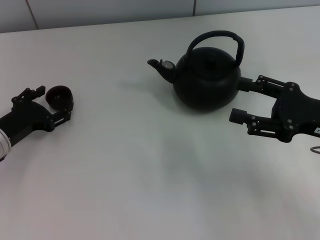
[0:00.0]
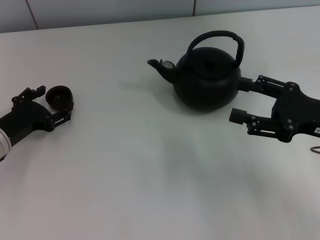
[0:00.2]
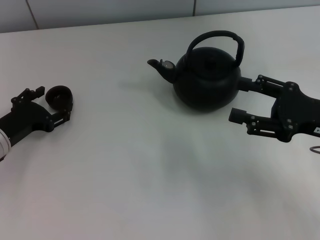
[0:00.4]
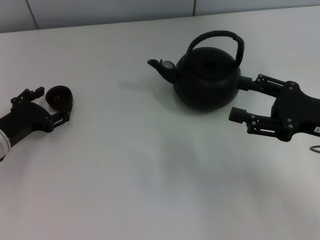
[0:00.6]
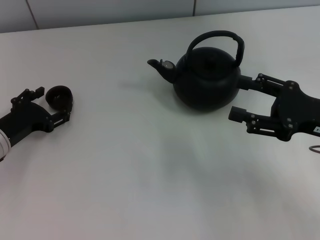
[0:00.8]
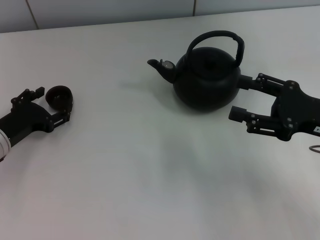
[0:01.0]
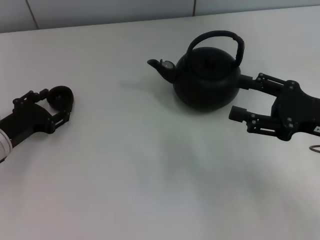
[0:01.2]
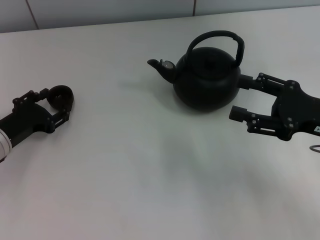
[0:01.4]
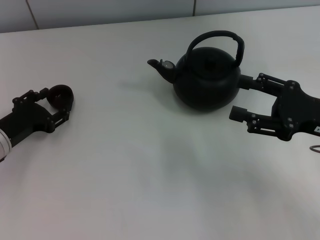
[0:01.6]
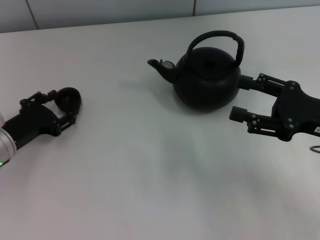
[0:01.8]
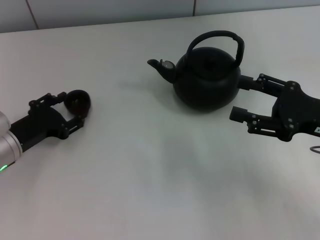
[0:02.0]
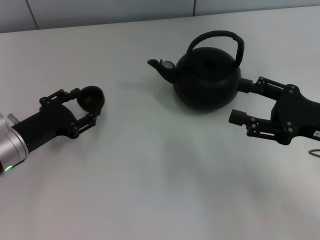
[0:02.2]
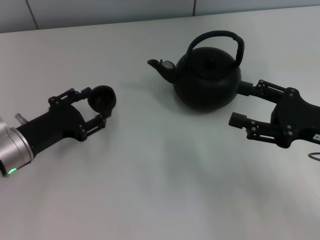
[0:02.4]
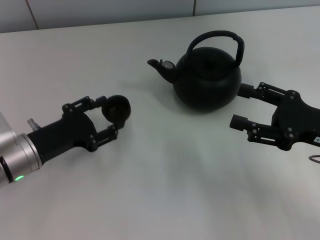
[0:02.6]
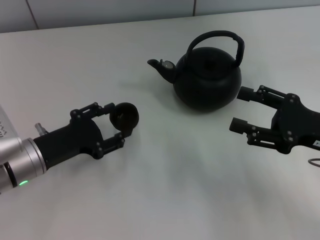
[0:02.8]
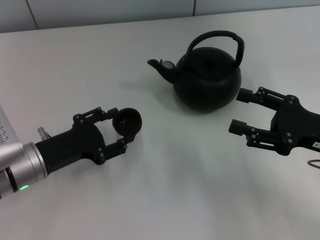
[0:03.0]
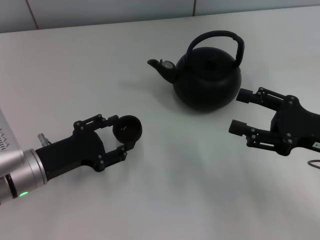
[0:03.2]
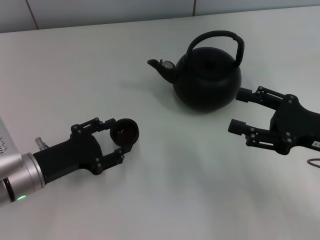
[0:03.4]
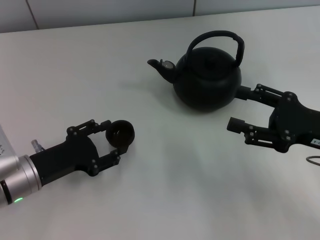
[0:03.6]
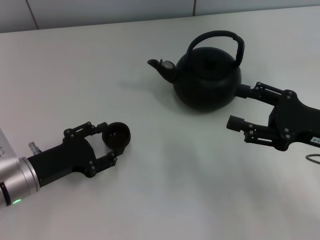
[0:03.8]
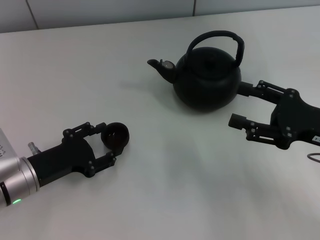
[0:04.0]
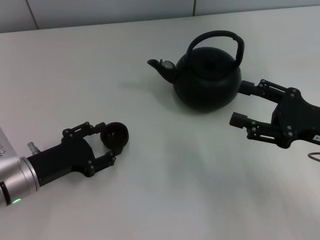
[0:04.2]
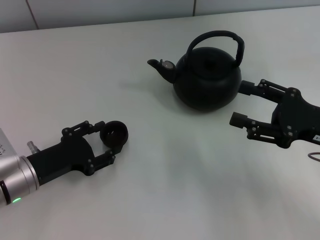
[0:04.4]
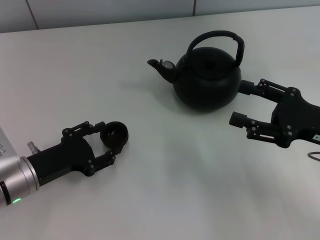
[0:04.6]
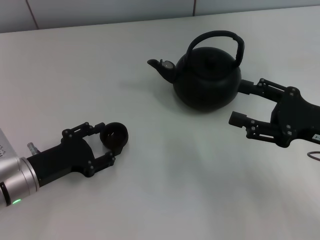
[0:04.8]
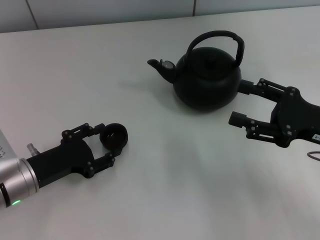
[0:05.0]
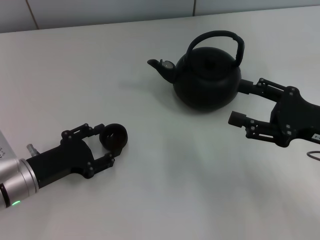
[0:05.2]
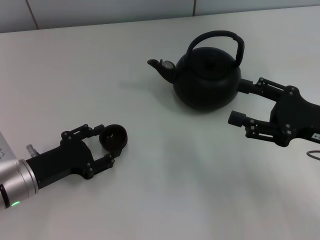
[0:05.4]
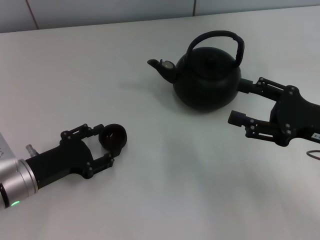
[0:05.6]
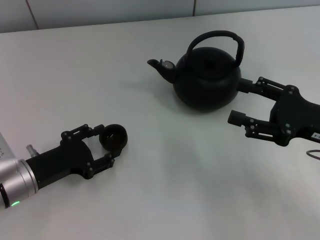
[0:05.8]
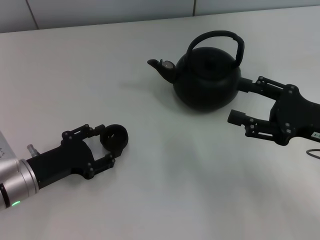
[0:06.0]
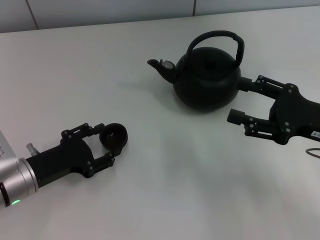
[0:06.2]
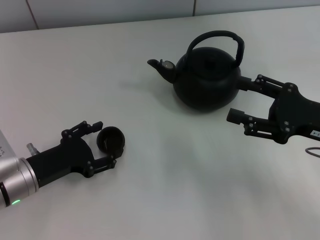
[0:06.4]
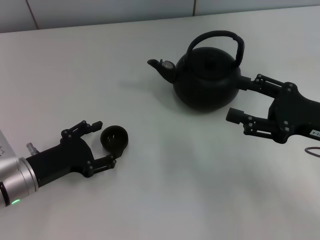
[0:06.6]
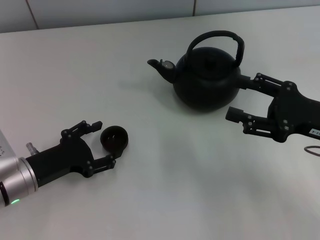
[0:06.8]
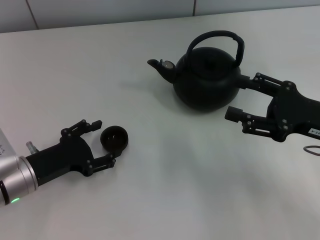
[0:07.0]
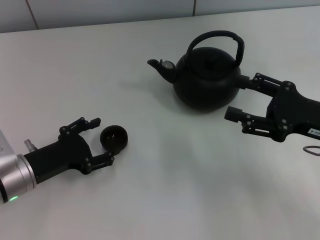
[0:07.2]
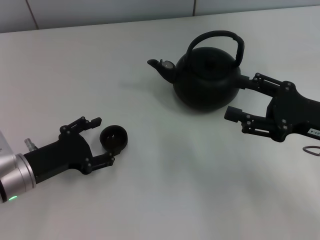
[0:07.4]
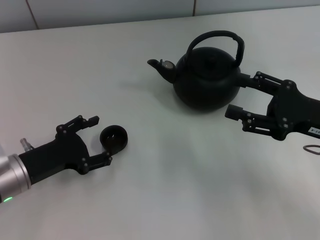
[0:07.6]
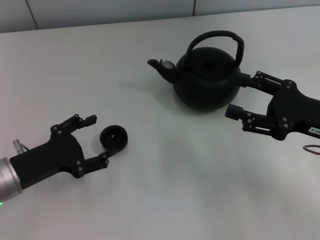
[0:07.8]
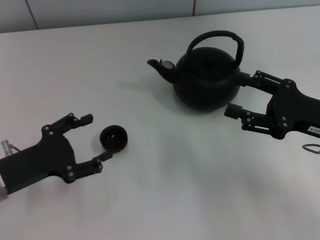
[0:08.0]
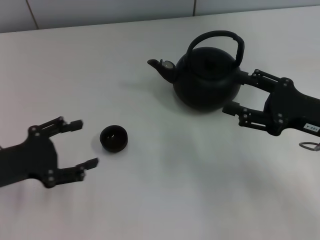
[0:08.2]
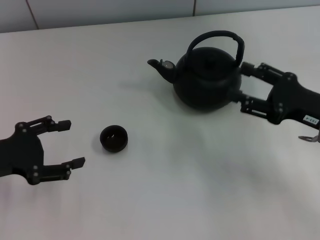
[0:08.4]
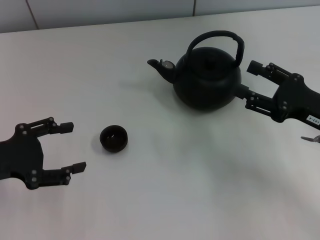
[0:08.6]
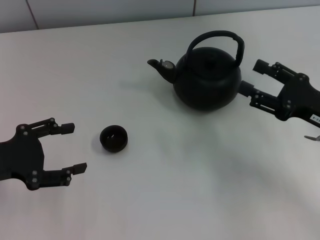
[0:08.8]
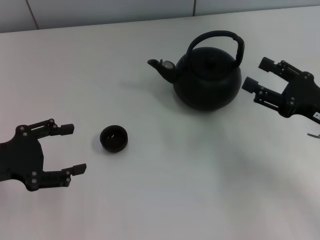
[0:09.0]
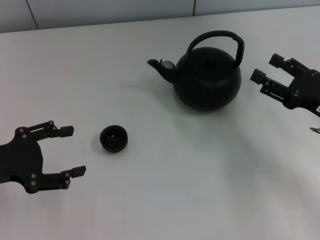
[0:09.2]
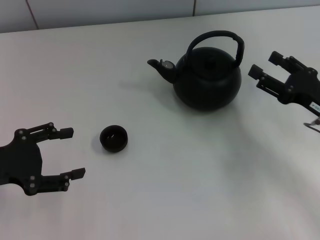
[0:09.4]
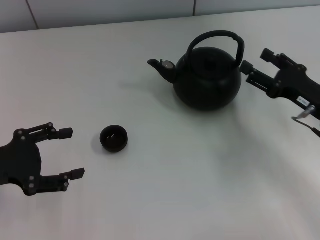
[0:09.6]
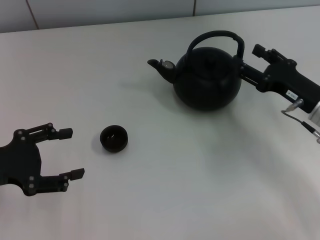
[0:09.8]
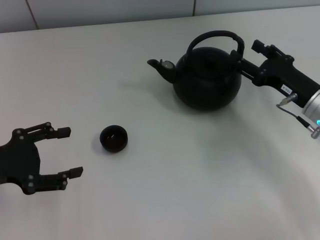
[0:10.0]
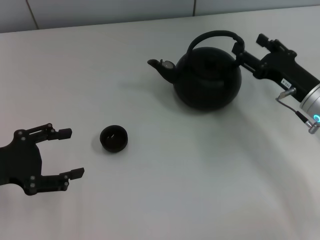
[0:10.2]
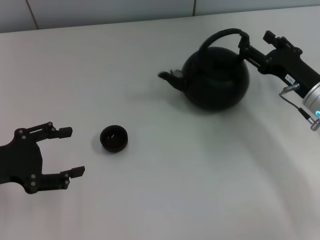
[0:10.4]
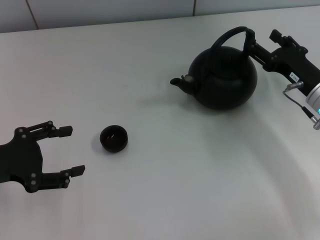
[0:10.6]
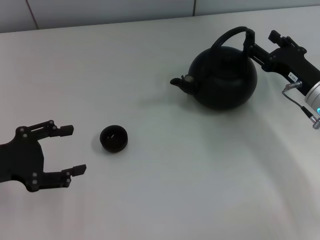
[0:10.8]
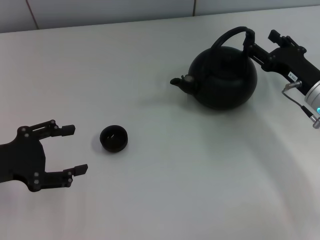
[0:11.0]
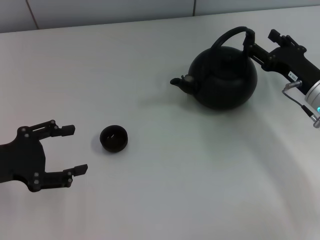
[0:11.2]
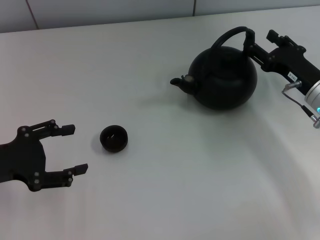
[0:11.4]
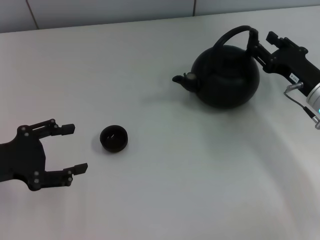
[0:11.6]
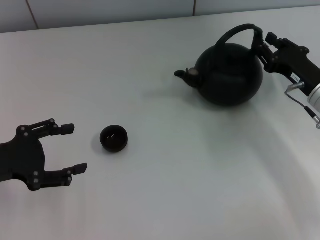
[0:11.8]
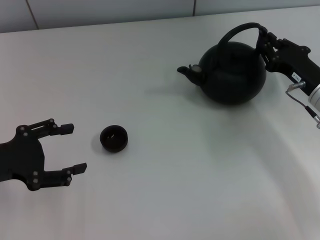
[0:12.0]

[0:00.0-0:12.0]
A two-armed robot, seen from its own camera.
Task of the whole recording: Grasp the handle of the teapot with one hand and pour tea into the teacup.
Step, 0:00.0 to 0:02.0: Pick up the teacup with the left gripper.
Step, 0:02.2 to 0:07.2: Place the teacup in the center of view with the left gripper.
0:00.0 to 0:01.6: The left gripper closes its fingers.
0:01.6 to 0:03.0: The left gripper heads to the right, covering about 5 cm.
0:03.0 to 0:04.4: The grippers stay close to where they were, moving slightly.
0:04.4 to 0:06.0: Both grippers stay put.
0:06.0 to 0:07.6: The left gripper opens.
0:07.6 to 0:09.0: The left gripper goes about 10 cm upward and to the left.
0:09.0 to 0:10.4: The right gripper moves forward, roughly 5 cm.
0:10.4 to 0:12.0: The right gripper closes up.

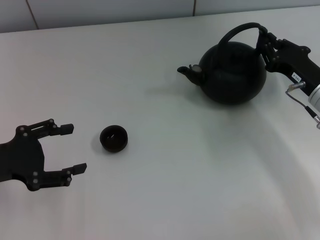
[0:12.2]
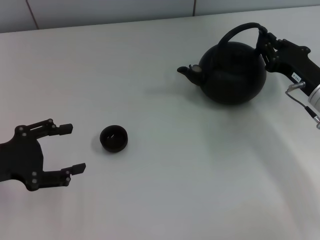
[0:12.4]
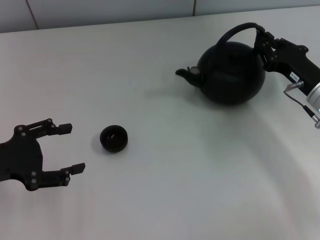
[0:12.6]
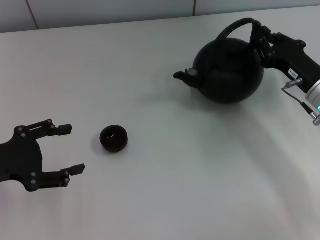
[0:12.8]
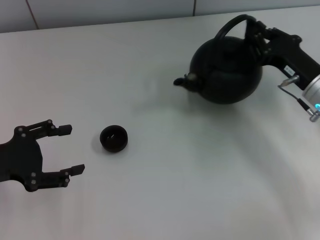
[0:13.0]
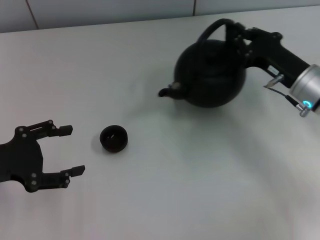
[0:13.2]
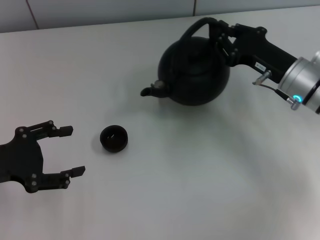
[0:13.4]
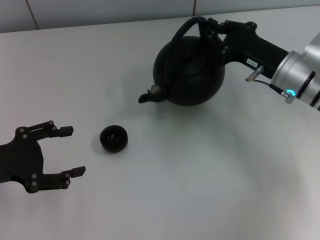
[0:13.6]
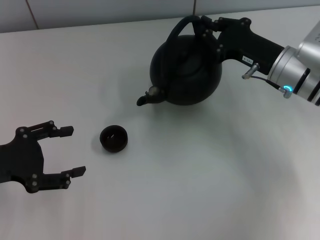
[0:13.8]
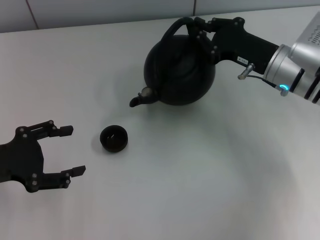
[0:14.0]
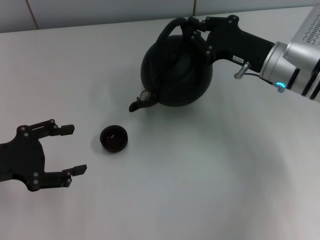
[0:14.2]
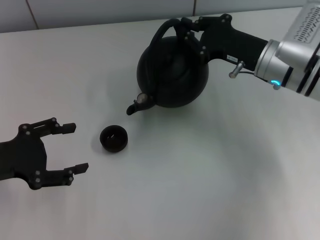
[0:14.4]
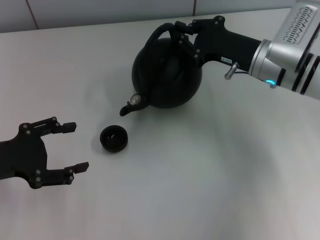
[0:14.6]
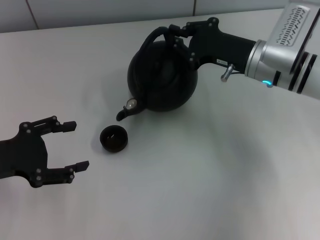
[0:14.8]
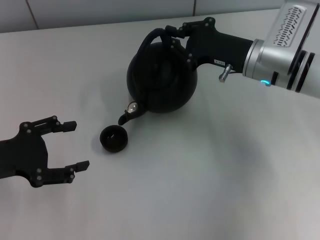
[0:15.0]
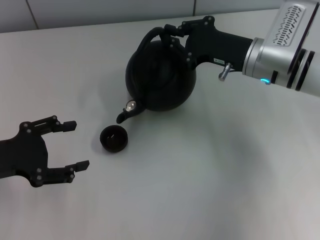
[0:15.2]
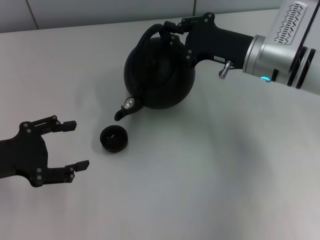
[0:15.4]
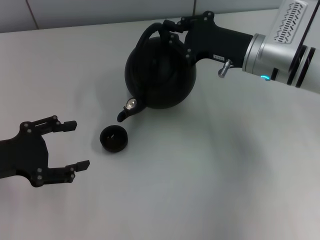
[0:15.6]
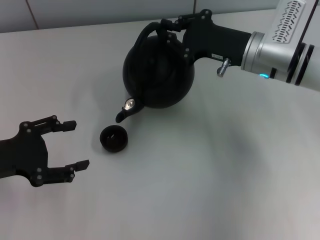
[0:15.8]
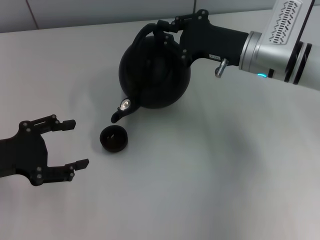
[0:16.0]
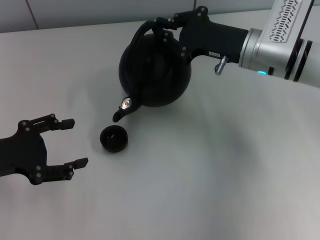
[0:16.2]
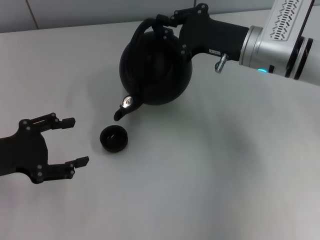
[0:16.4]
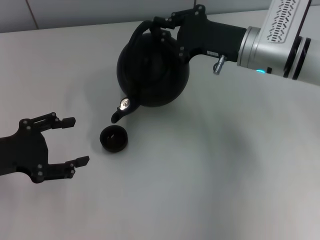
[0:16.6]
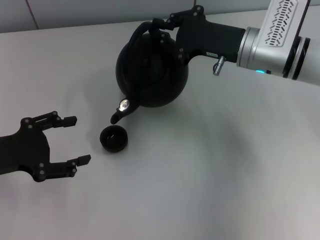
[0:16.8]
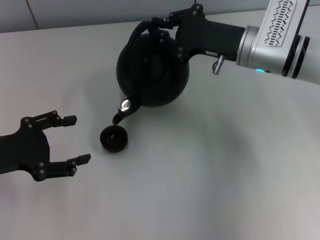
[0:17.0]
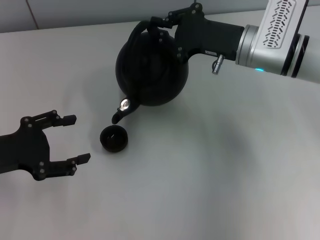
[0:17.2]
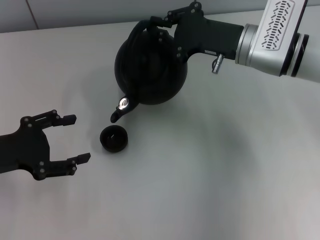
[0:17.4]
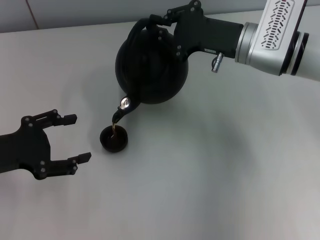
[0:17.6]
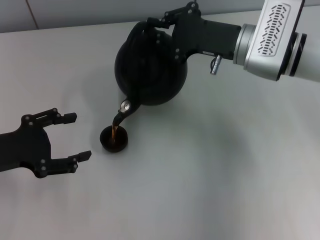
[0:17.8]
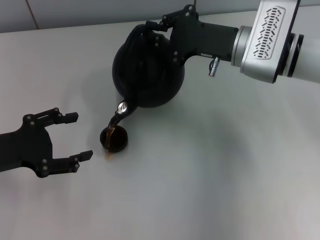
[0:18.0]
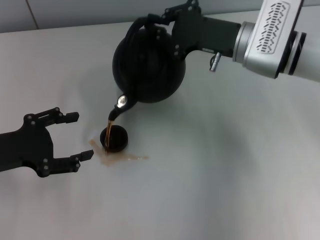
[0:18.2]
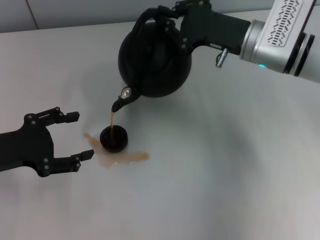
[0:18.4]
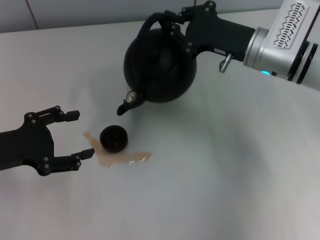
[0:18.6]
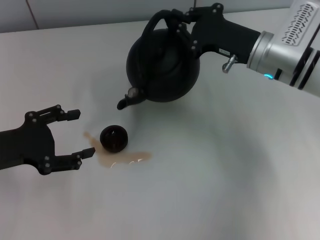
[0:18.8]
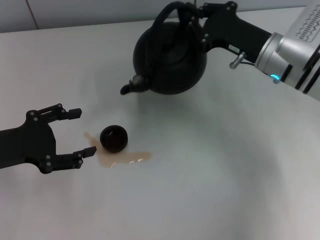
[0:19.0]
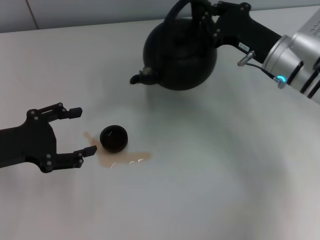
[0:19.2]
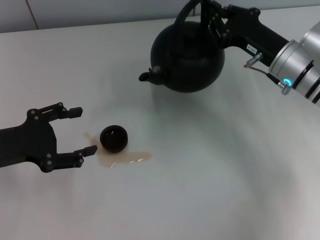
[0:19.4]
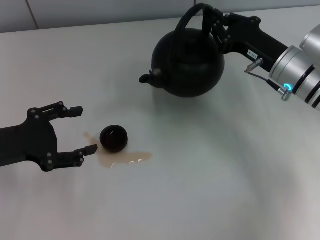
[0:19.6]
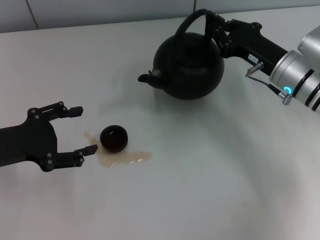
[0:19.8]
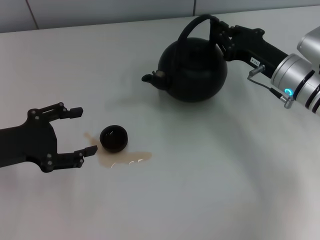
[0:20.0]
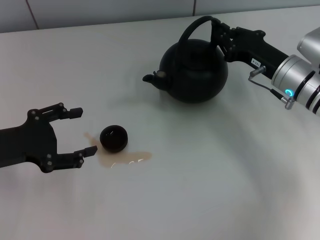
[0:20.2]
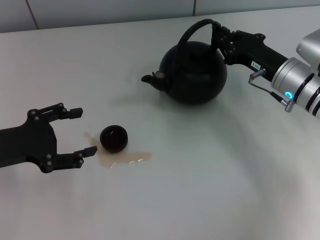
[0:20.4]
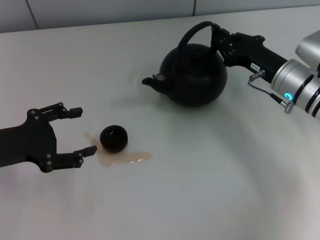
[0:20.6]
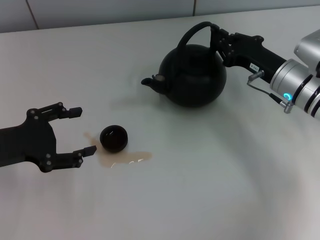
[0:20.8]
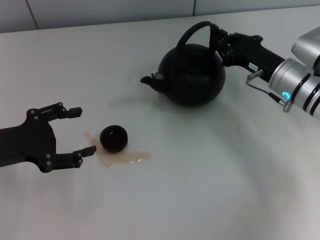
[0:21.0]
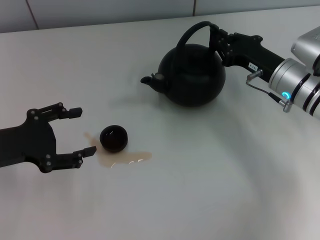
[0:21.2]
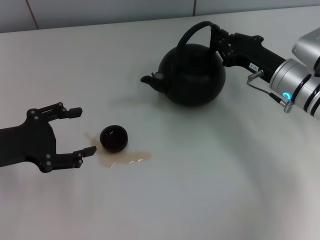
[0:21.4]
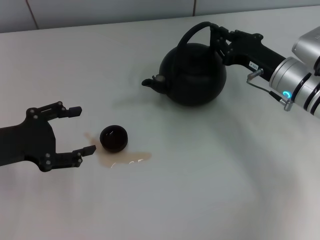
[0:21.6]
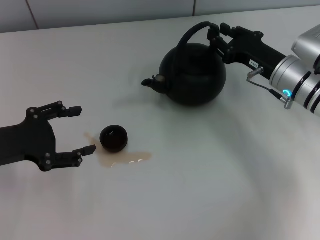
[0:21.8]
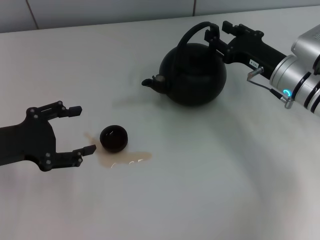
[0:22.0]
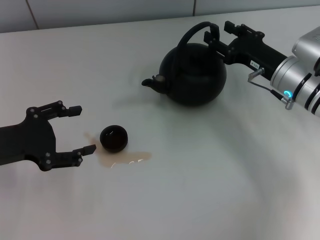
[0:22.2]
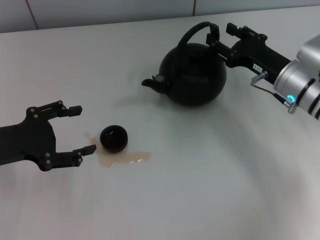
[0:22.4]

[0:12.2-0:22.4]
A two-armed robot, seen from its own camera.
Task of the whole recording: Grasp the handle of the teapot with one hand and pour tea into the teacup.
0:12.2 to 0:13.6: The right gripper heads to the left, covering roughly 5 cm.
0:13.6 to 0:15.2: The right gripper changes place by roughly 5 cm.
0:15.2 to 0:18.0: The grippers move only a little.
0:18.0 to 0:19.4: The right gripper goes about 5 cm to the right.
0:19.4 to 0:21.0: The grippers move only a little.
0:21.0 to 0:22.4: The right gripper opens.
